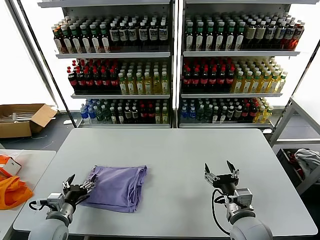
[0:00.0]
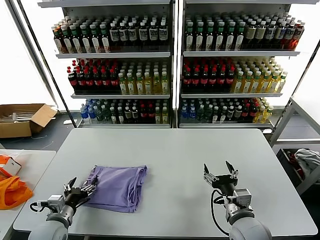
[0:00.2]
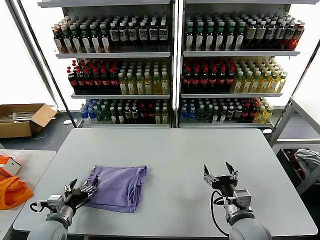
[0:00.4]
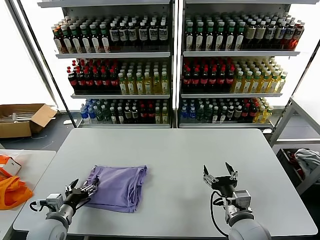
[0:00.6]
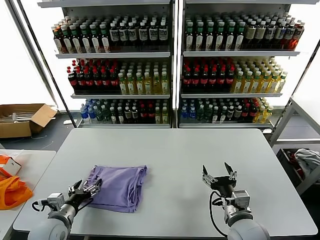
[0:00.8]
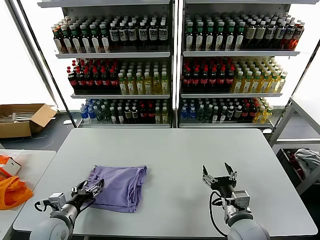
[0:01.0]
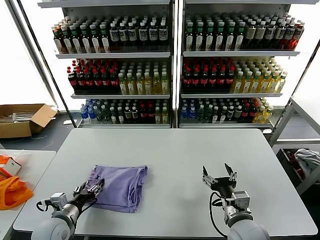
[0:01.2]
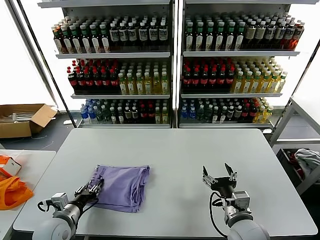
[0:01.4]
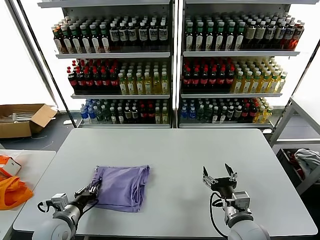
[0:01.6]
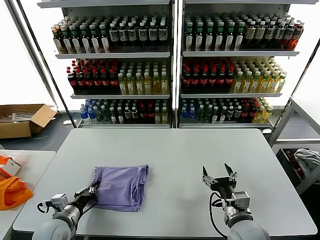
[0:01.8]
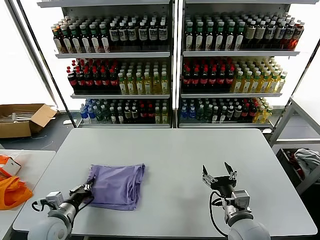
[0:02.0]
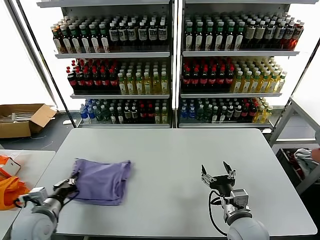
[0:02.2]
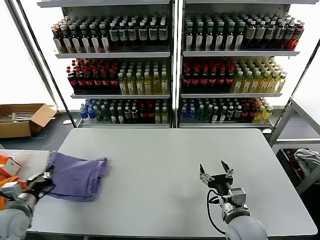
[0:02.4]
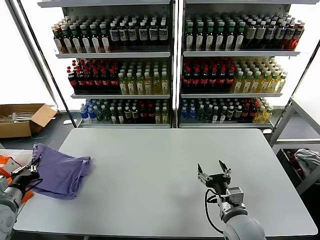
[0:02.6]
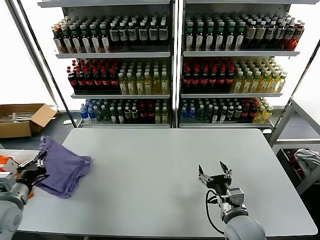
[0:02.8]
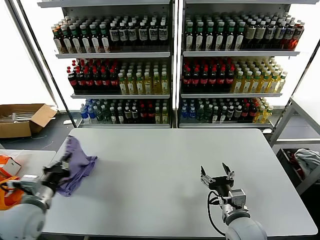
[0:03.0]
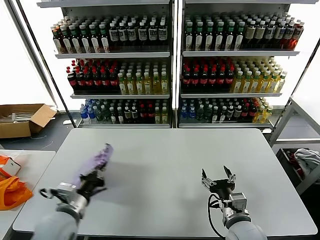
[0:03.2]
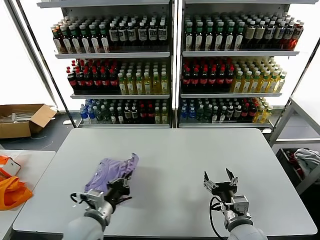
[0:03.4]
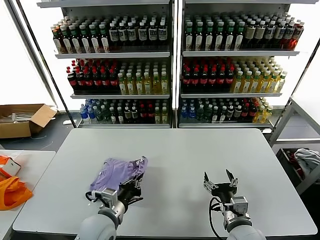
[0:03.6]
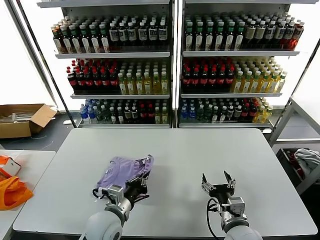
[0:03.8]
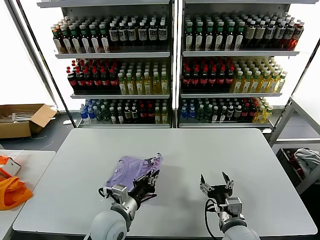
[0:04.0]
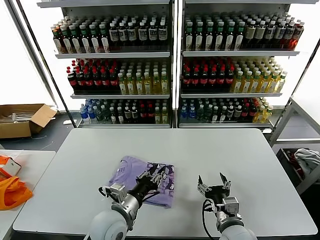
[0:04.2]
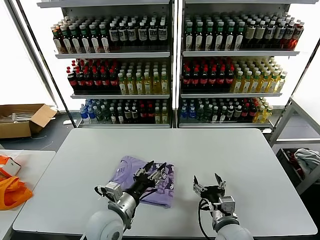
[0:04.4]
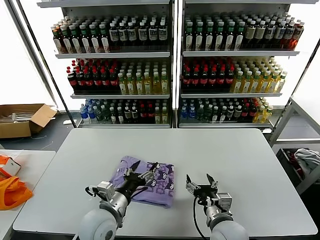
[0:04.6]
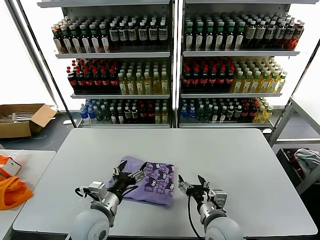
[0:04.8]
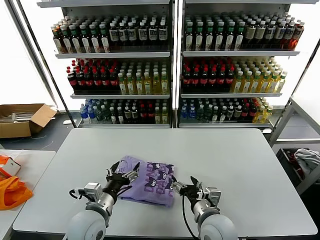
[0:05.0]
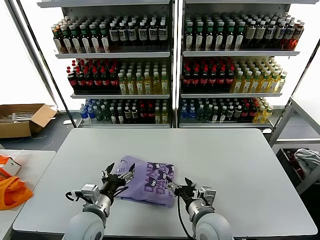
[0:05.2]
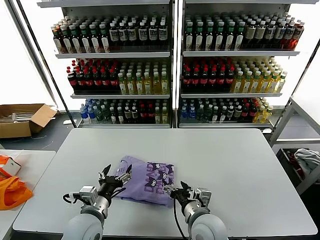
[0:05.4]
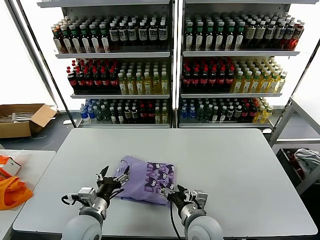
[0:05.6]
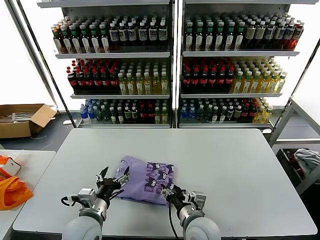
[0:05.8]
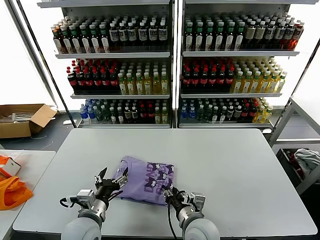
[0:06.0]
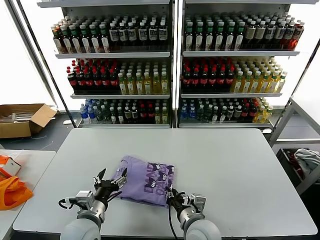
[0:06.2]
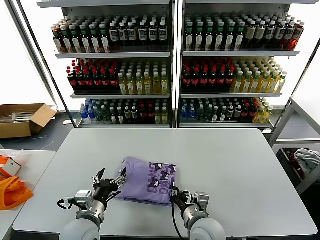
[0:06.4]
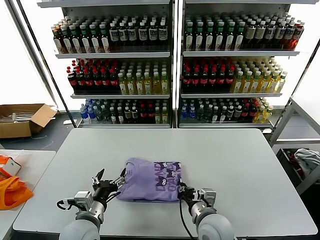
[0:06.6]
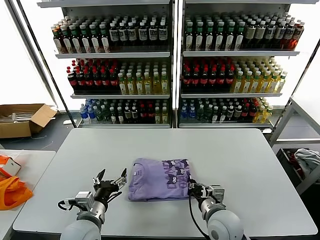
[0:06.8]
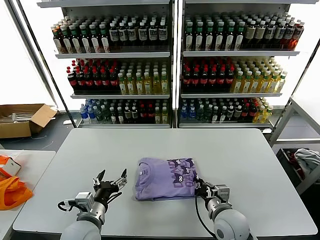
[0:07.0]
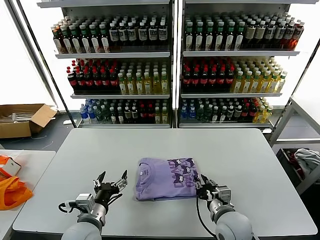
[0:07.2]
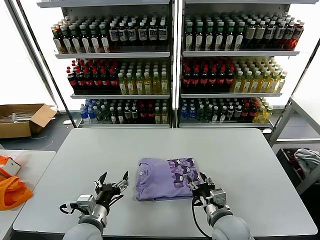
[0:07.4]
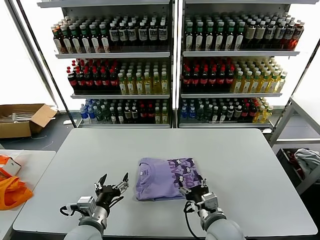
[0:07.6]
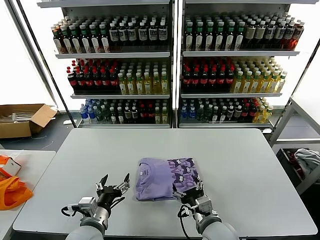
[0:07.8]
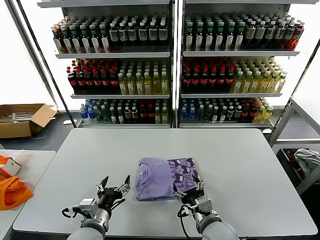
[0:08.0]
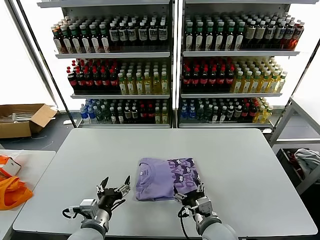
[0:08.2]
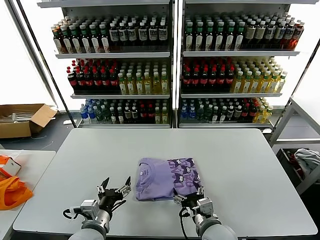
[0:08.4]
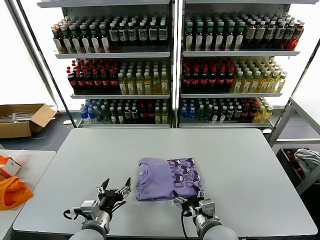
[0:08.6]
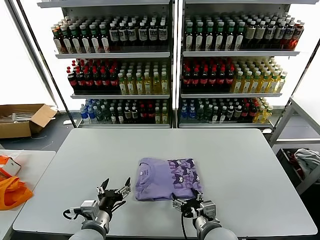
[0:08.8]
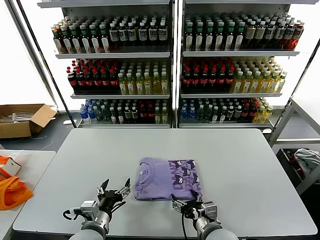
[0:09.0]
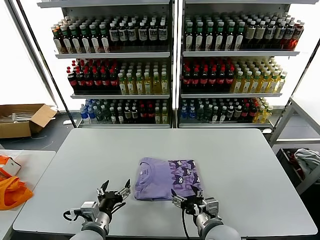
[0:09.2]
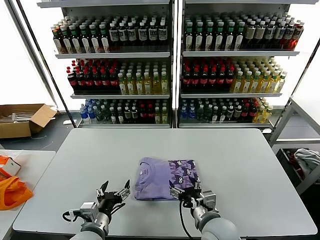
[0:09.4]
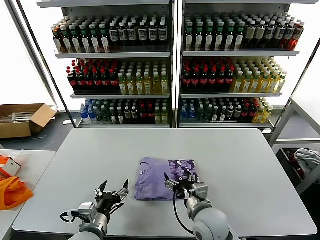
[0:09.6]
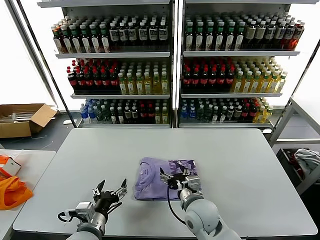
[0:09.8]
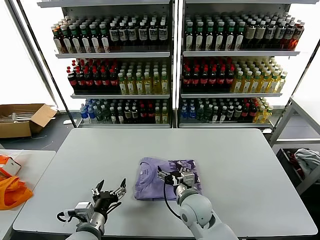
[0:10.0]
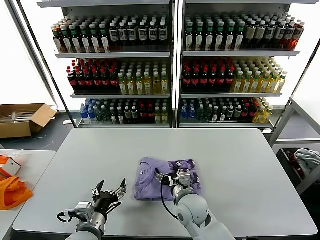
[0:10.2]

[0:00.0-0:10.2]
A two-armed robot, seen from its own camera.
Task of the whole recording: fold and organize the clothes.
Step, 0:00.0 to 0:04.0: Flip the folded clothes over with left gripper.
0:00.0 to 0:01.4: The left gripper closes up.
0:01.4 to 0:03.0: The left gripper is displaced upward by approximately 10 cm, and closes.
0:03.0 to 0:04.4: The left gripper shifts roughly 25 cm to the right, and opens.
0:04.4 to 0:05.8: Both grippers move to the left, approximately 5 cm. The left gripper opens.
0:05.8 to 0:07.2: The right gripper is displaced to the right by approximately 10 cm, and closes.
0:07.2 to 0:08.8: The right gripper ends up about 5 cm from where it was, and opens.
0:08.8 to 0:10.2: The right gripper is displaced forward and to the left by some 10 cm.

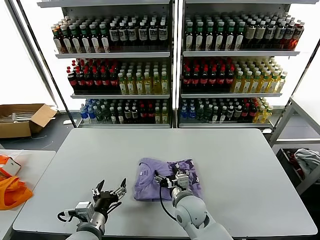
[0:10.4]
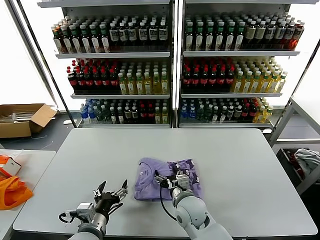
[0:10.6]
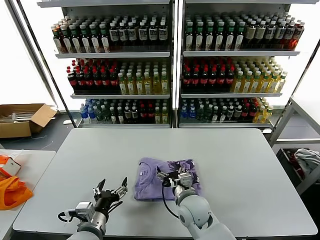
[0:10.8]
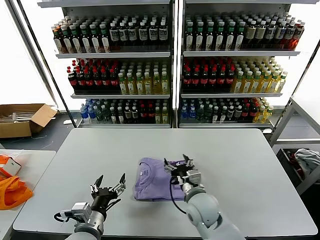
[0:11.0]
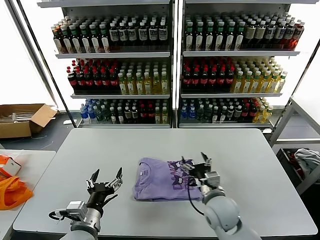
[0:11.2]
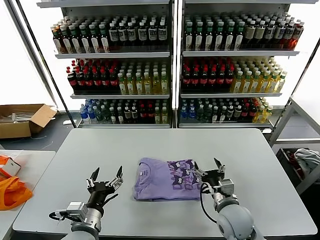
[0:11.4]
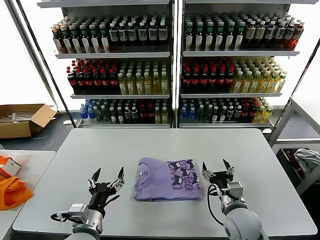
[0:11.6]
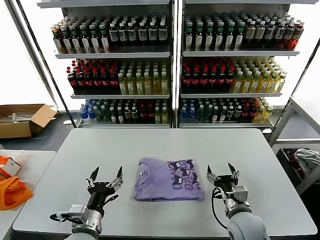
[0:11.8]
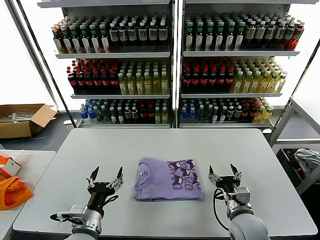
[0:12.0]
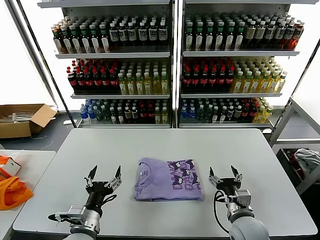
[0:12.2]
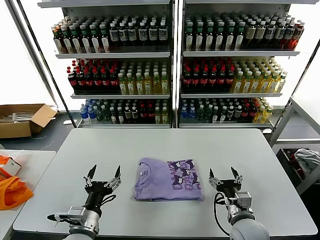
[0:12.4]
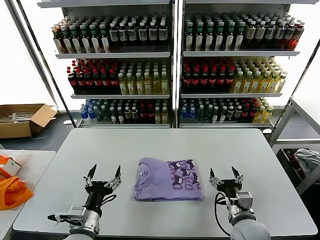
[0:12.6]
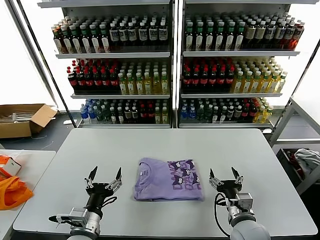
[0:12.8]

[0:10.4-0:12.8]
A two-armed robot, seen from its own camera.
Task of the whole recording: fold and organize the clothes.
0:10.4 to 0:11.6: The right gripper goes approximately 15 cm to the right.
0:11.6 to 0:12.8: The grippers make only small movements.
